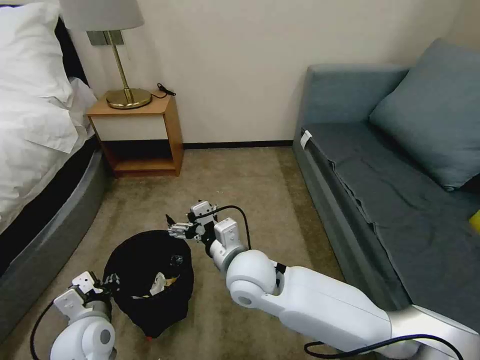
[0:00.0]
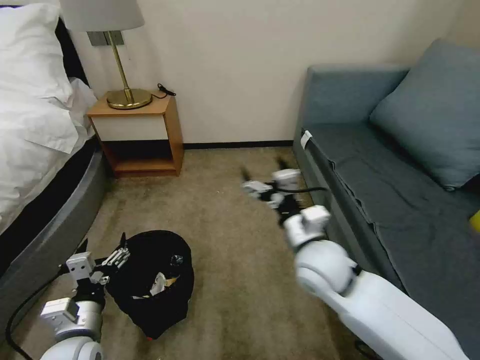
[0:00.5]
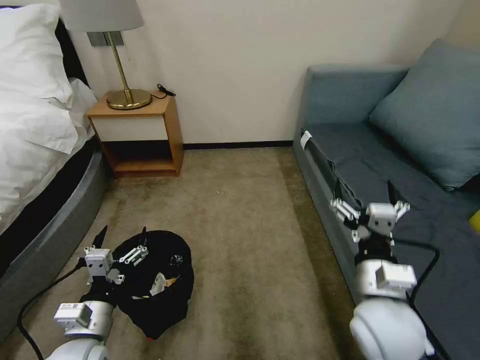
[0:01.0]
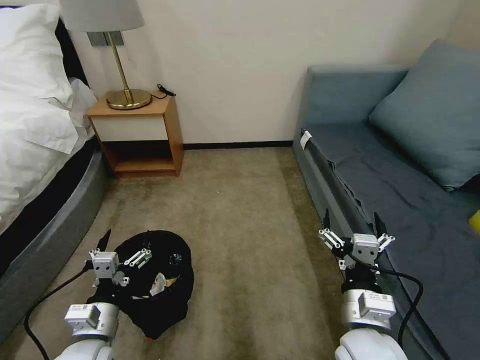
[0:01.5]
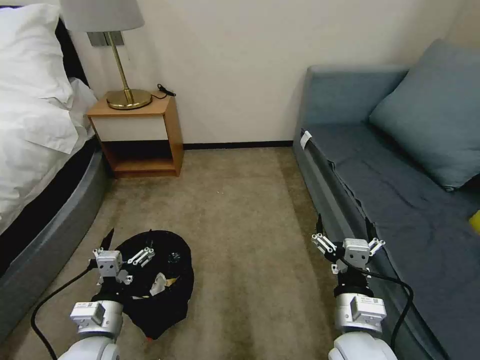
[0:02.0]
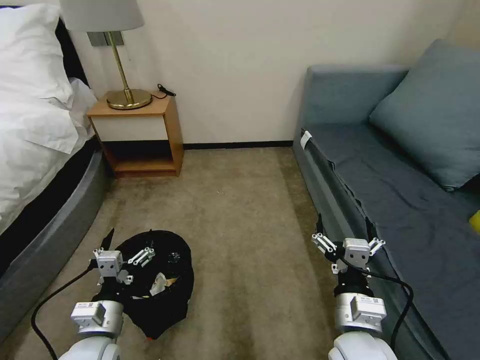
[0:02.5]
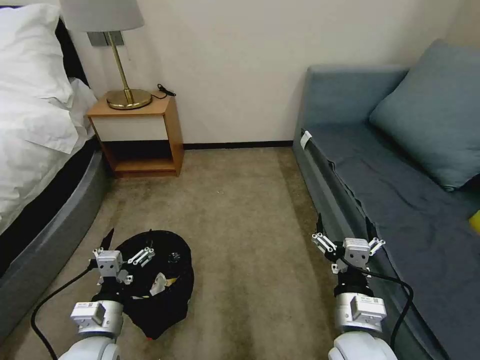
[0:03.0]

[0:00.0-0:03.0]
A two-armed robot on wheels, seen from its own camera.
Task of the whole recording: Pick up the trash bin, then pick up the garbage on the floor and place it into the trash bin.
0:00.0 to 0:01.5: The right gripper shifts approximately 20 cm to the right and backward. Meanwhile the left gripper opens up.
0:01.5 to 0:03.0: Neither gripper changes place.

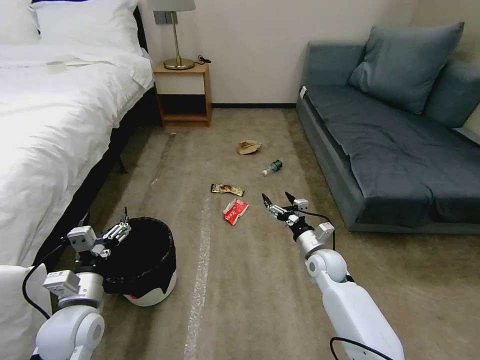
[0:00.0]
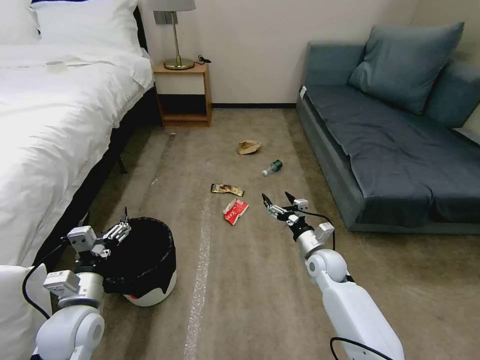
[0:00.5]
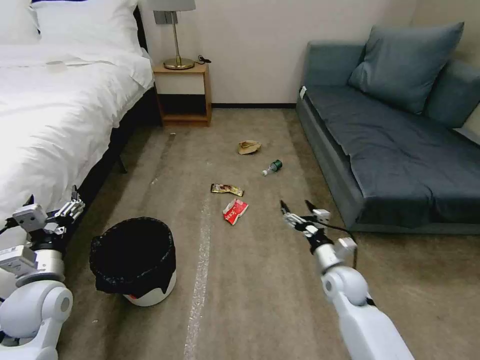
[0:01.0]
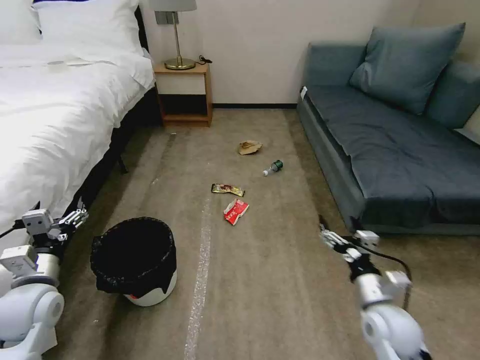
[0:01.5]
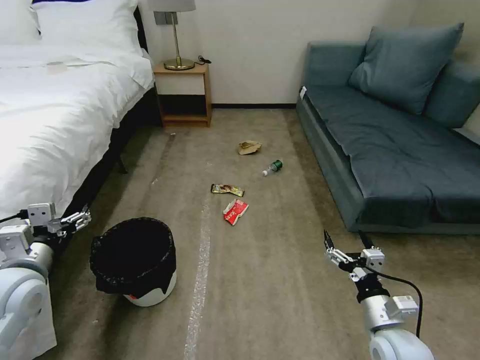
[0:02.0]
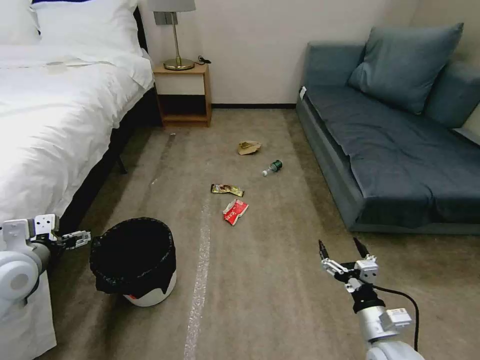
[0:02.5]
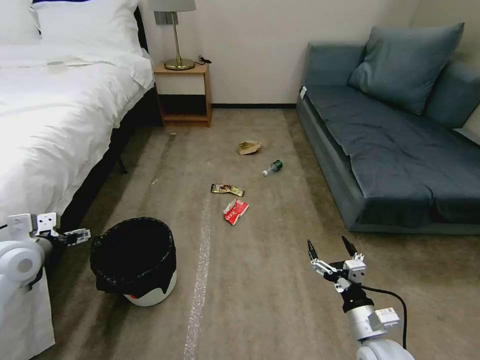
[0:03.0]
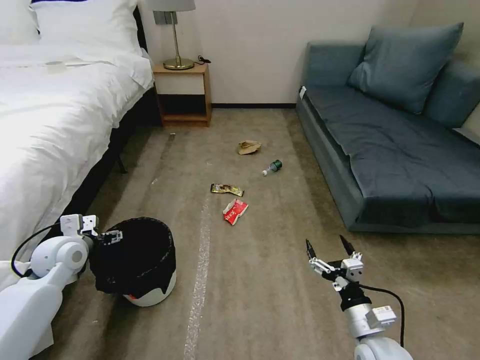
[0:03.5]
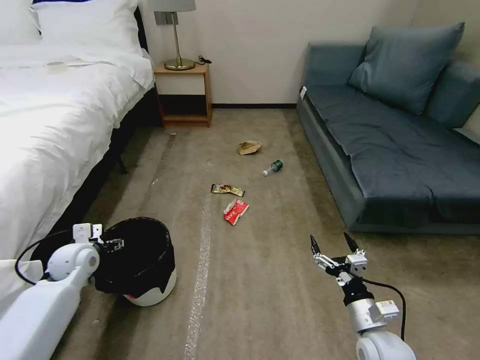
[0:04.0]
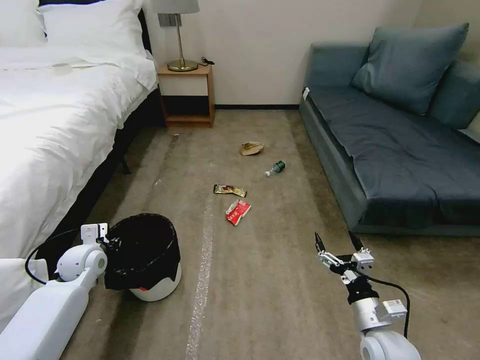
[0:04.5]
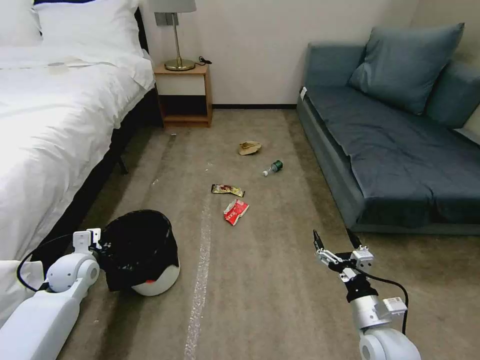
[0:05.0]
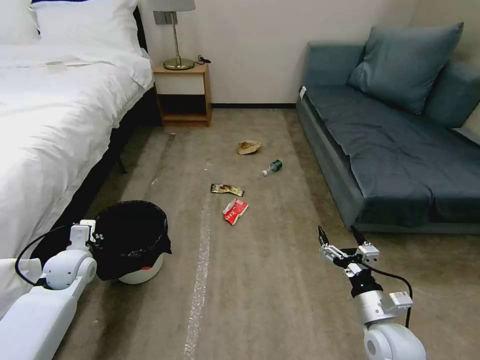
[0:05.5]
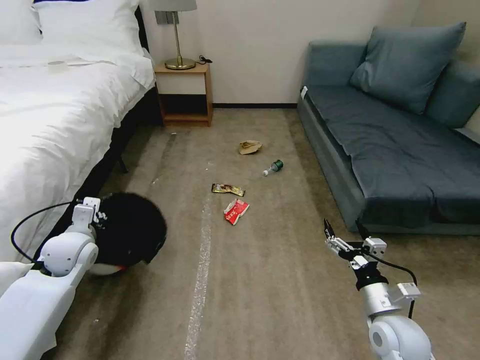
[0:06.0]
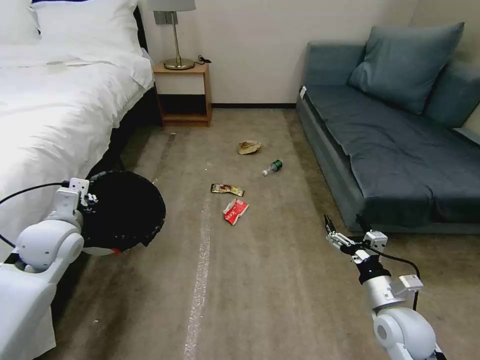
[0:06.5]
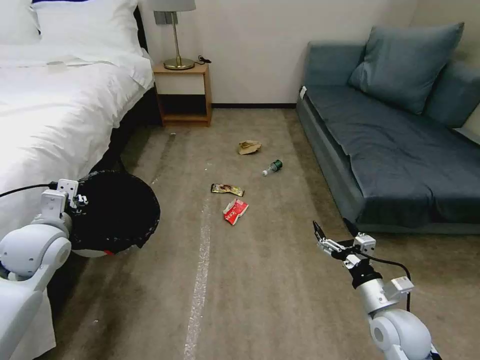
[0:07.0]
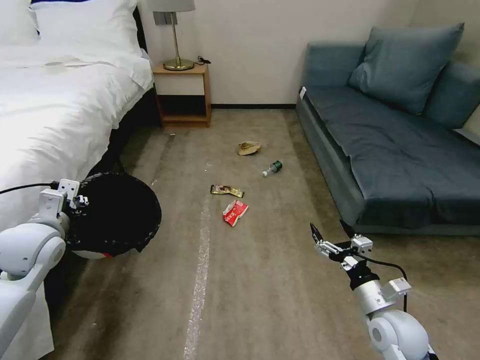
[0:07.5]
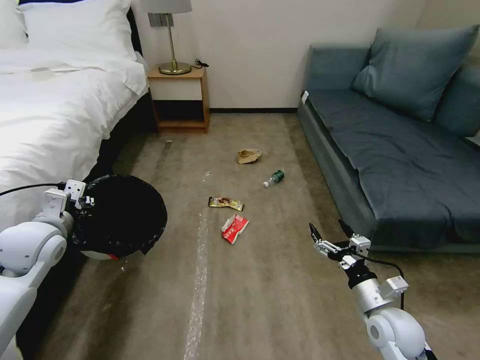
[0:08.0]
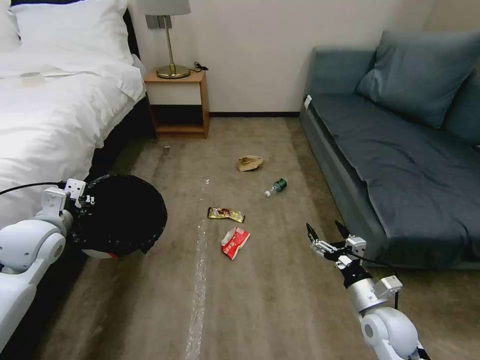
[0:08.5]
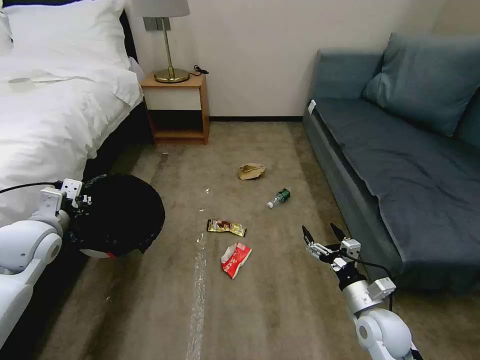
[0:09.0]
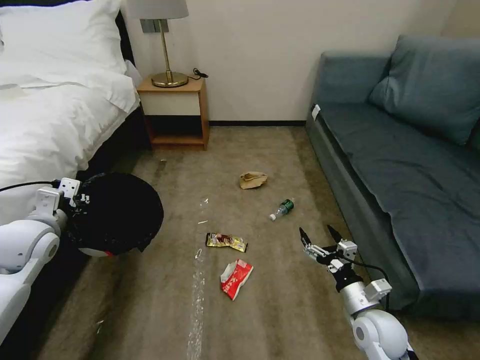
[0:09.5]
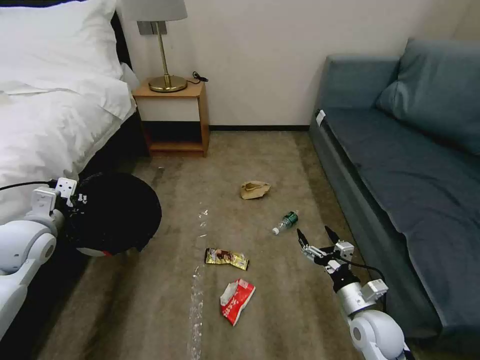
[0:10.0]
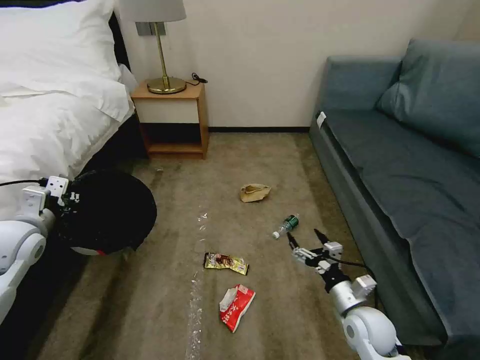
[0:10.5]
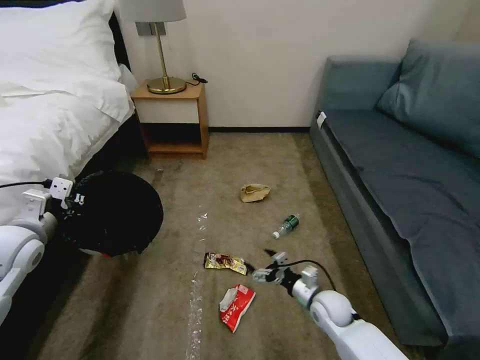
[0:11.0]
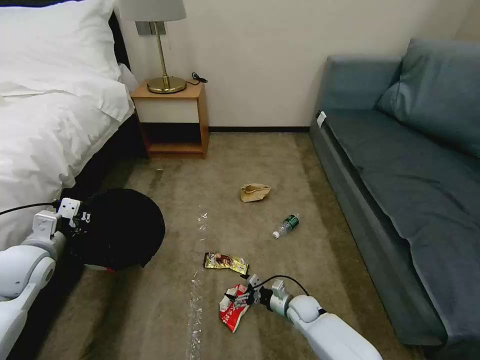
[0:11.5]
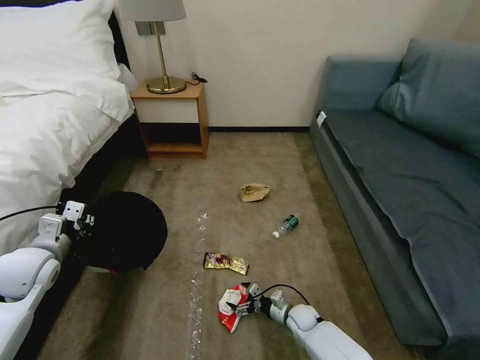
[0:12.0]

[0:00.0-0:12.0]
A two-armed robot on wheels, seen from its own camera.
Task of the whole recording: Pick up the trash bin, then pick up the garbage on the floor and place it into the trash bin.
0:02.0 to 0:04.0: The left gripper moves forward and downward, about 15 cm.
0:04.0 to 0:06.0: The left gripper moves about 5 cm, and closes its fingers.
0:06.0 to 0:08.0: The left gripper shifts approximately 10 cm upward.
0:10.0 to 0:12.0: The right gripper is displaced downward and to the left by roughly 25 cm; the left gripper goes roughly 5 cm downward.

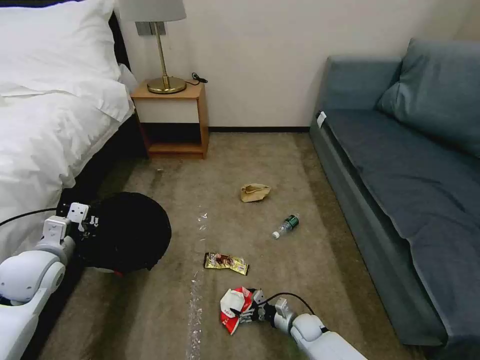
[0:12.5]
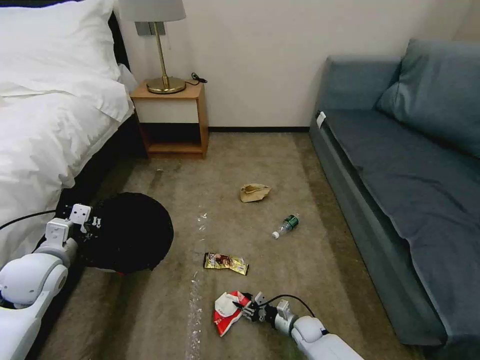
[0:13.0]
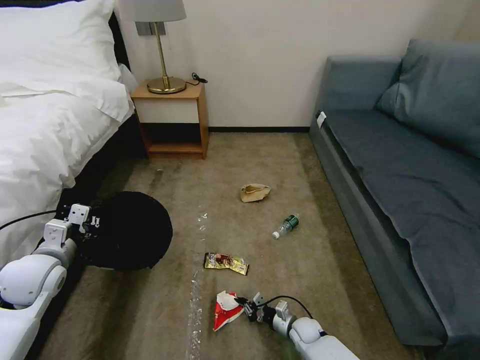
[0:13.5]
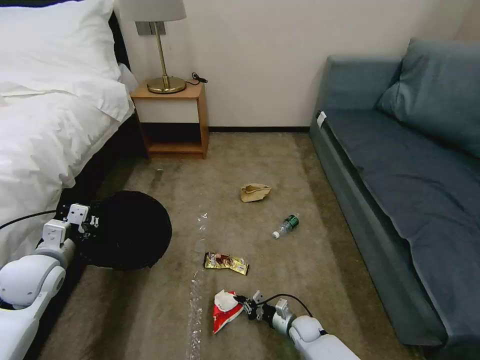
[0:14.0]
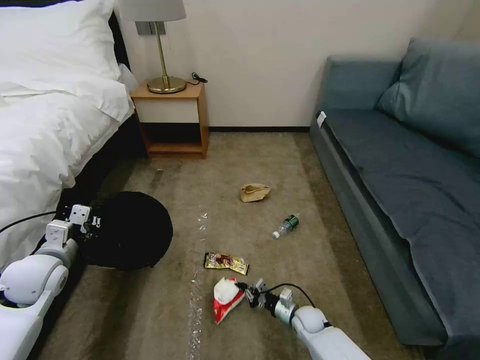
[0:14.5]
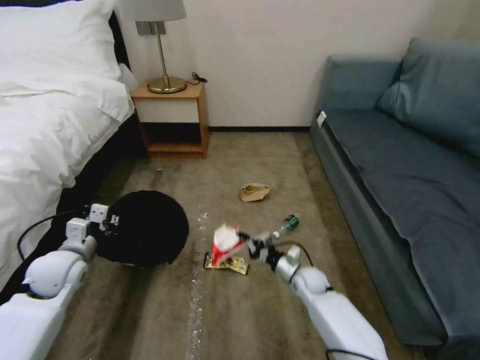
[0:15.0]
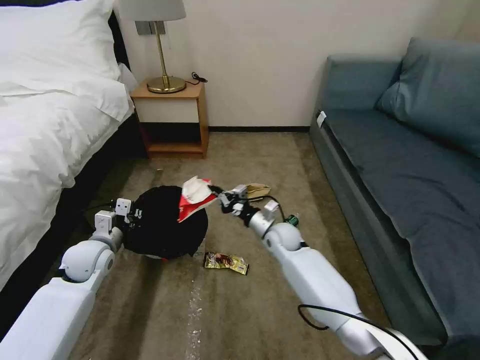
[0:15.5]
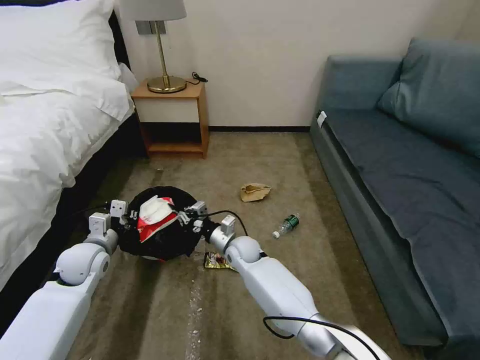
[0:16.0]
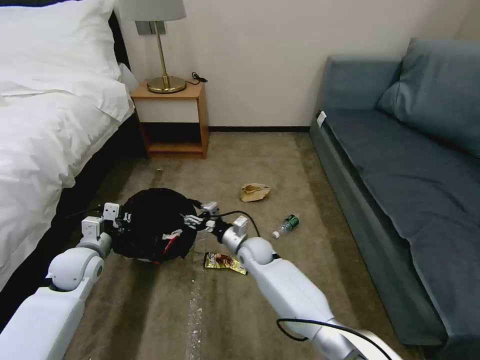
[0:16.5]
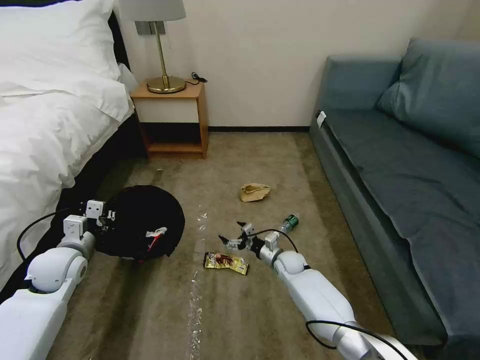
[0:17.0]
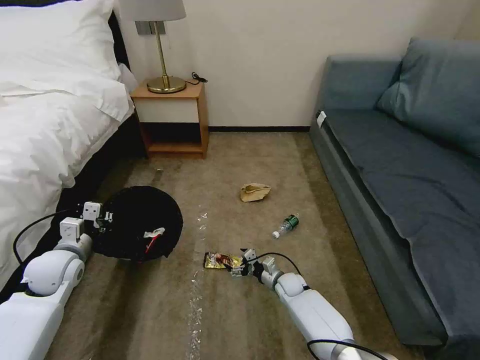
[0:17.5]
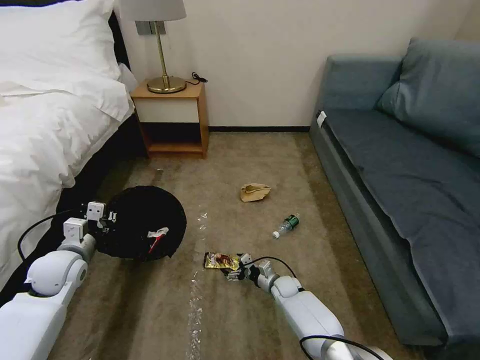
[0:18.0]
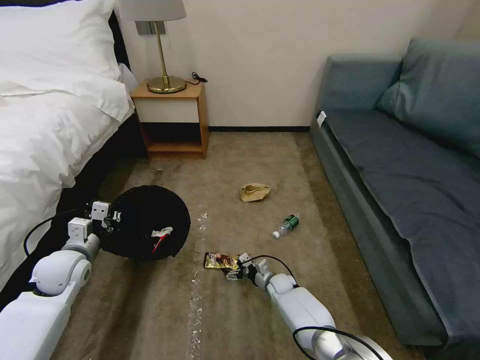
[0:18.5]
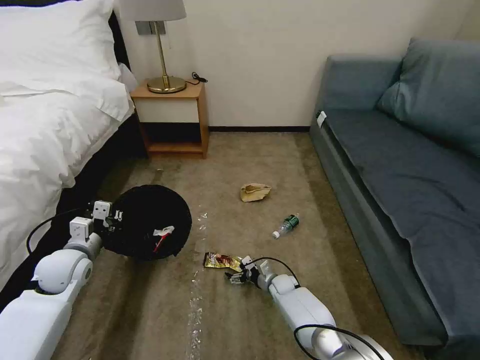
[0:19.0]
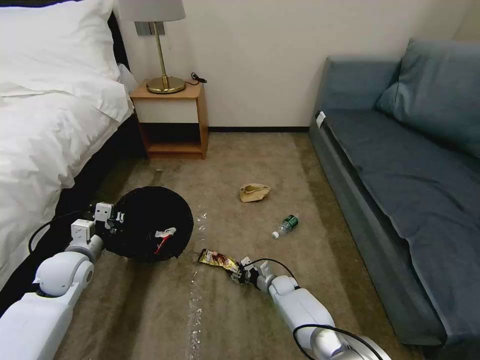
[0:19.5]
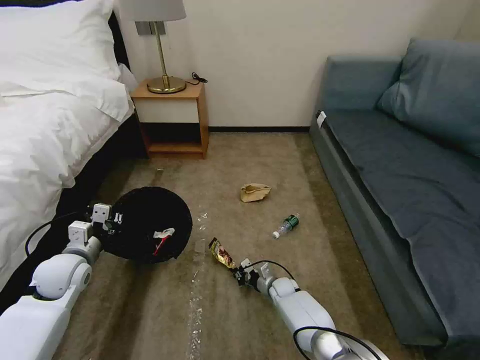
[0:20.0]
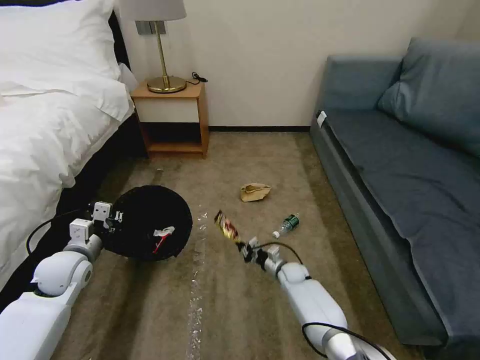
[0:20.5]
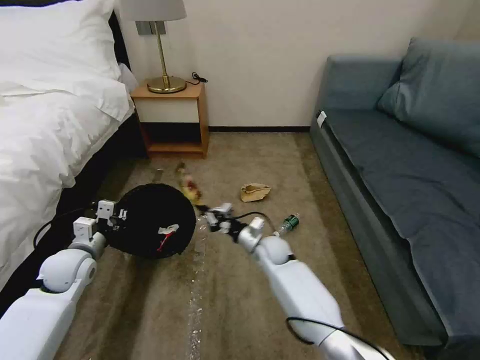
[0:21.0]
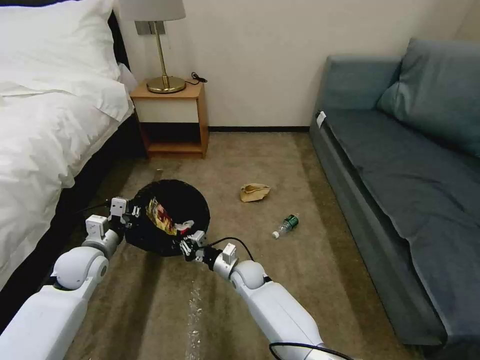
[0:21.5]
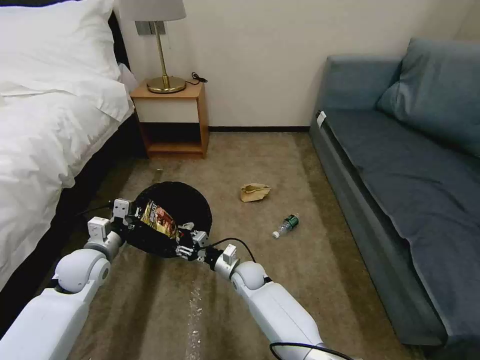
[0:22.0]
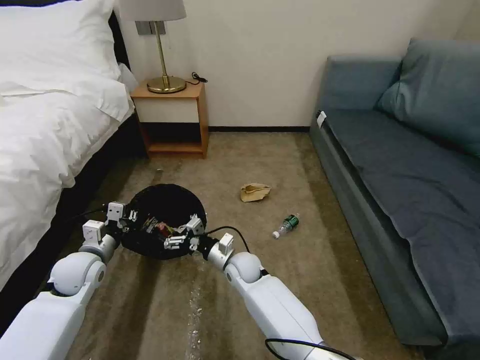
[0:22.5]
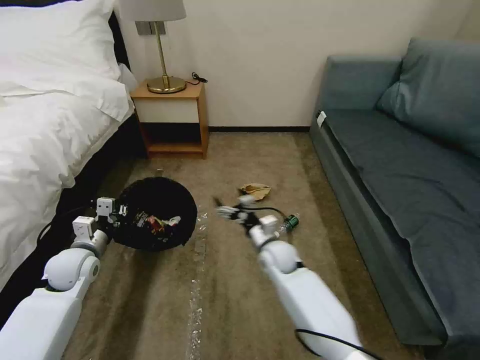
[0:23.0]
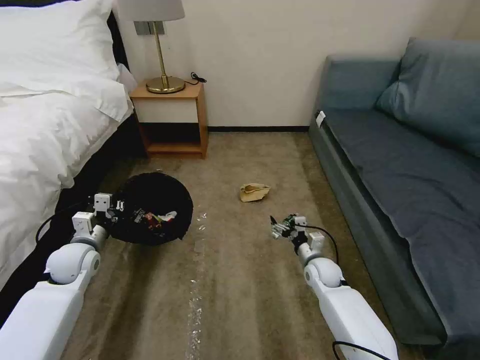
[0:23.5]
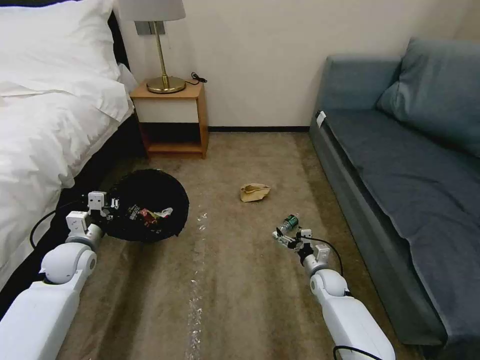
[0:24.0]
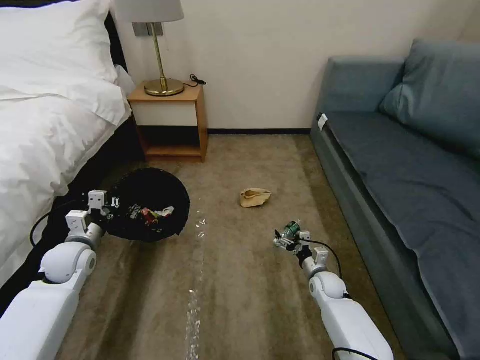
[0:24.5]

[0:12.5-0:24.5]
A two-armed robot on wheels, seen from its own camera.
Task of the whole recording: Pick up the trash bin, then pick up the garbage on the floor and place it into the trash bin.
0:12.5 to 0:14.5: The right gripper closes up.
0:14.5 to 0:16.5: The right gripper heads upward, to the left and forward, covering roughly 30 cm, and opens. The left gripper changes place by about 5 cm.
0:16.5 to 0:18.5: The right gripper is displaced downward and to the right by roughly 20 cm.
0:18.5 to 0:20.5: The right gripper shifts by roughly 5 cm, and closes its fingers.
0:20.5 to 0:22.5: The right gripper moves to the left and upward, roughly 20 cm, and opens up.
0:22.5 to 0:24.5: The right gripper travels to the right by roughly 25 cm.
